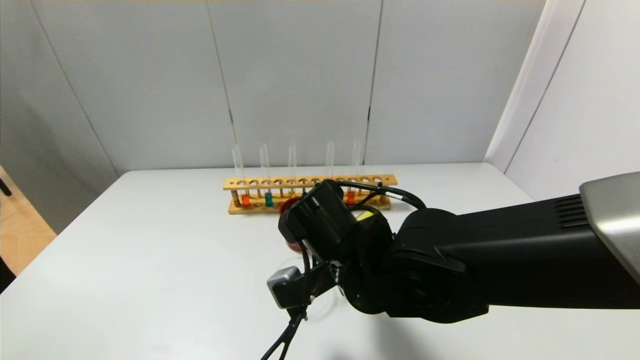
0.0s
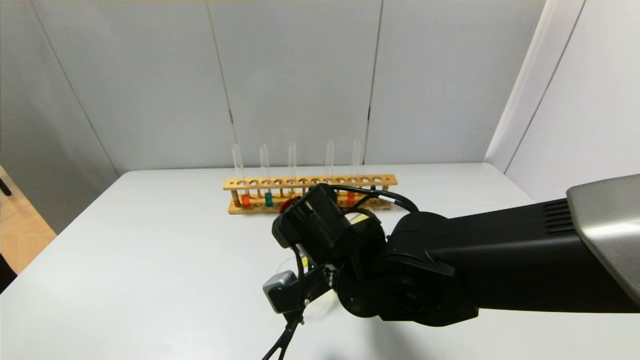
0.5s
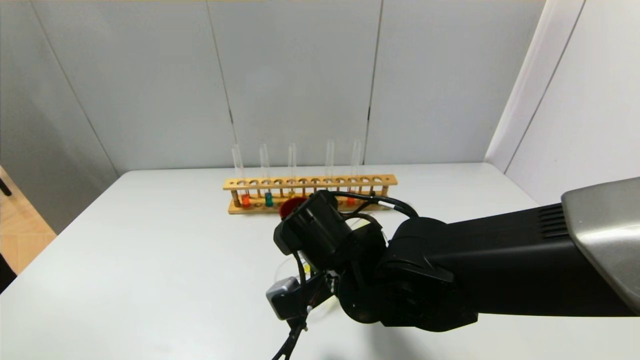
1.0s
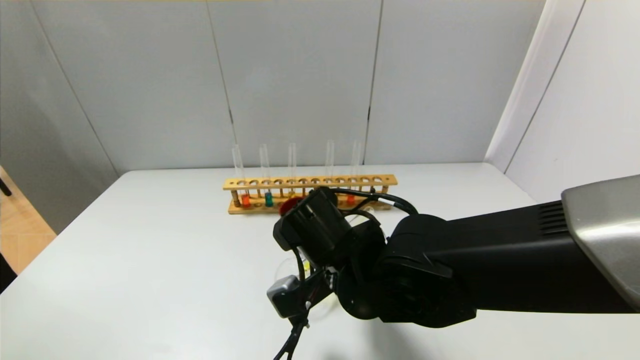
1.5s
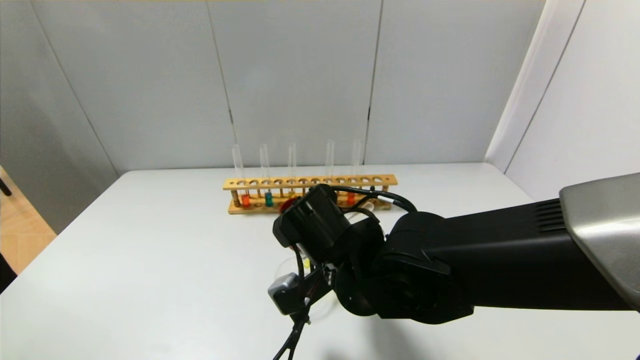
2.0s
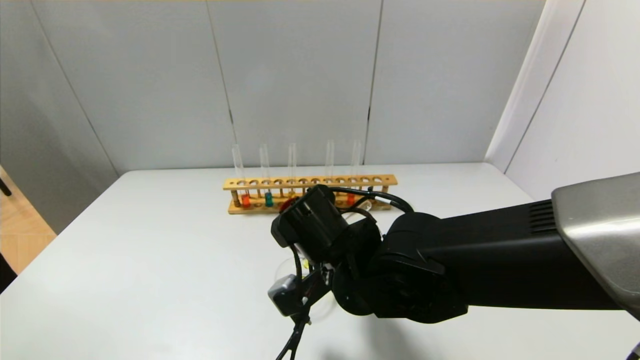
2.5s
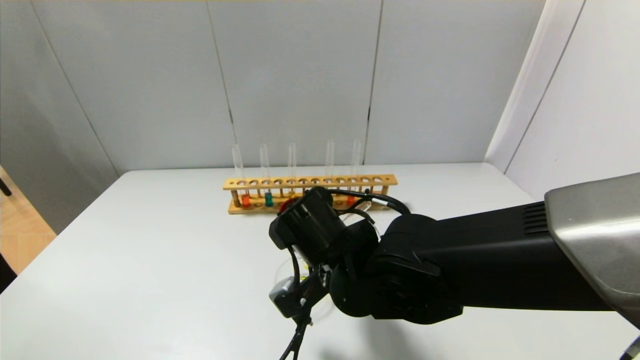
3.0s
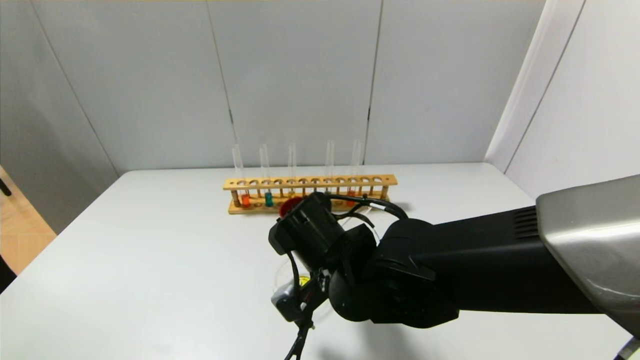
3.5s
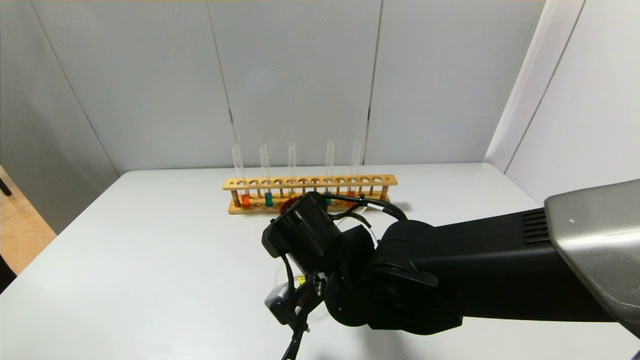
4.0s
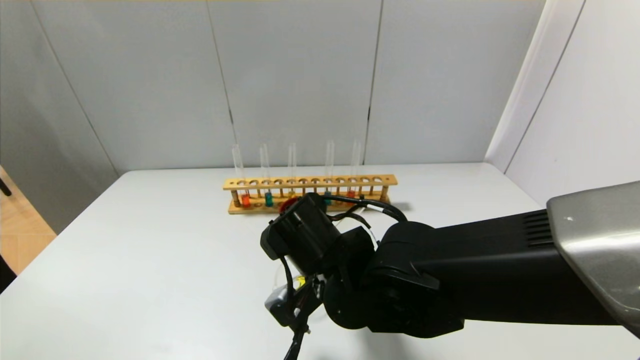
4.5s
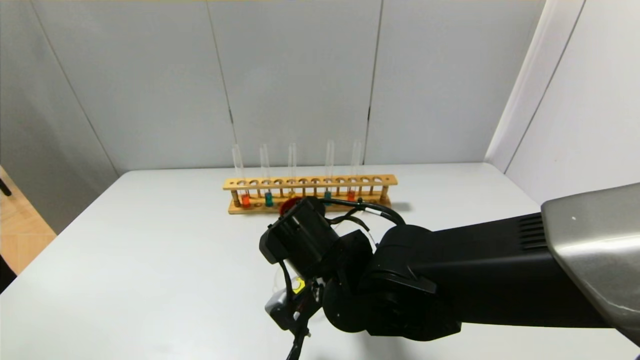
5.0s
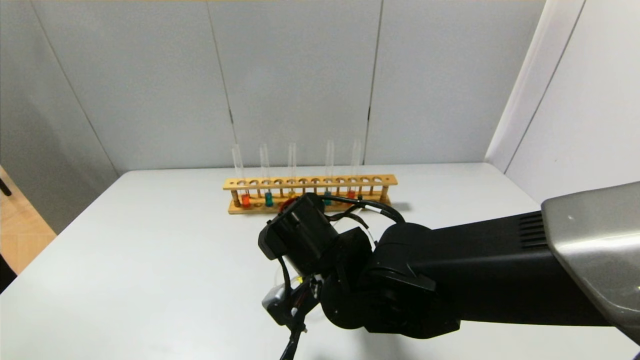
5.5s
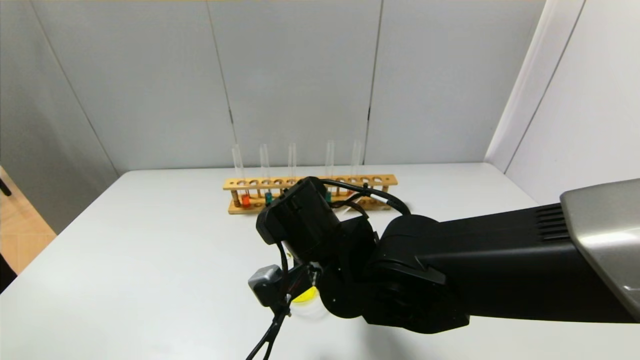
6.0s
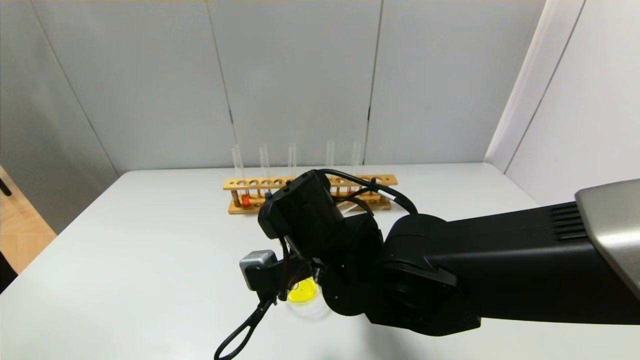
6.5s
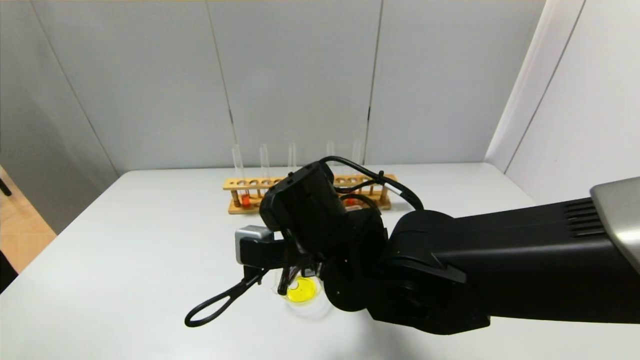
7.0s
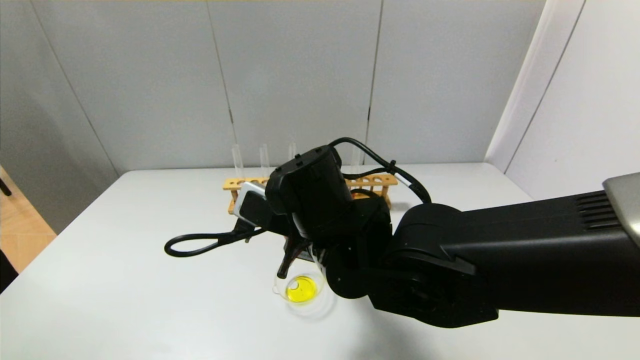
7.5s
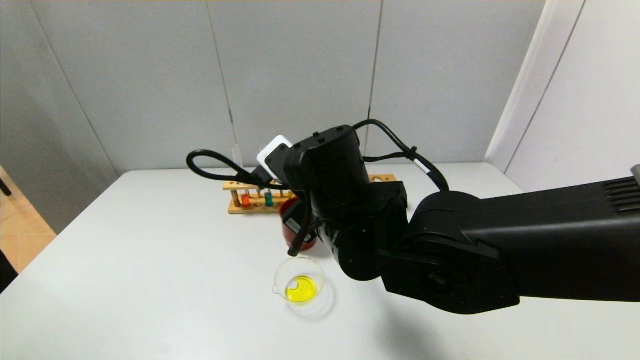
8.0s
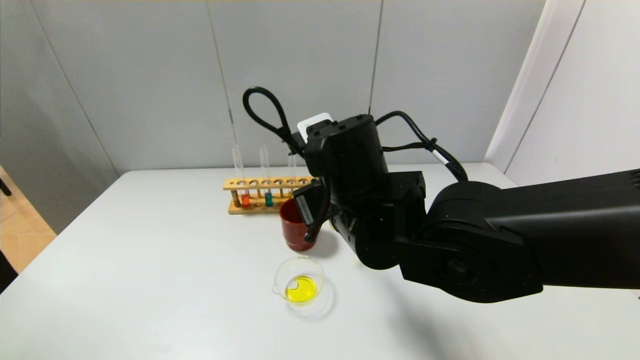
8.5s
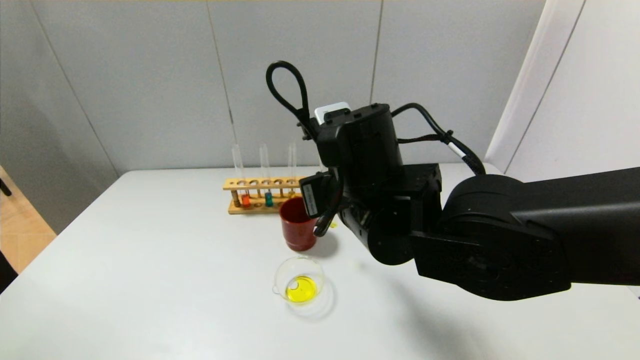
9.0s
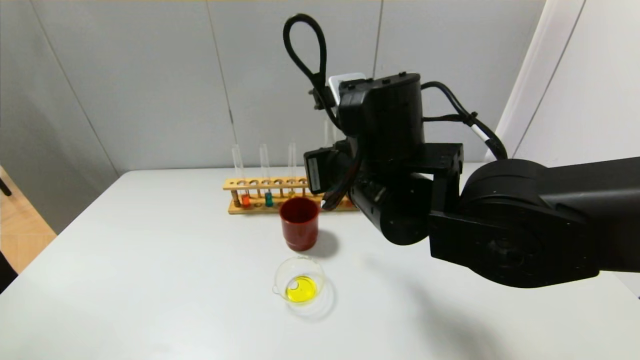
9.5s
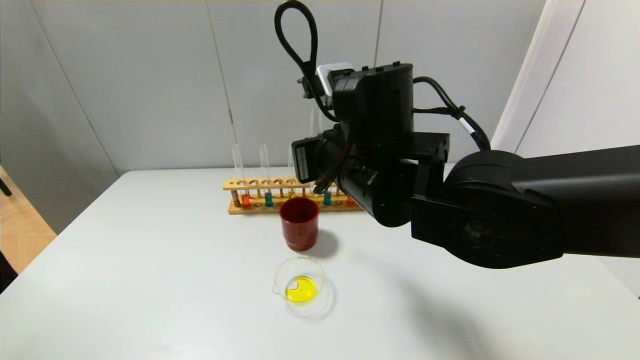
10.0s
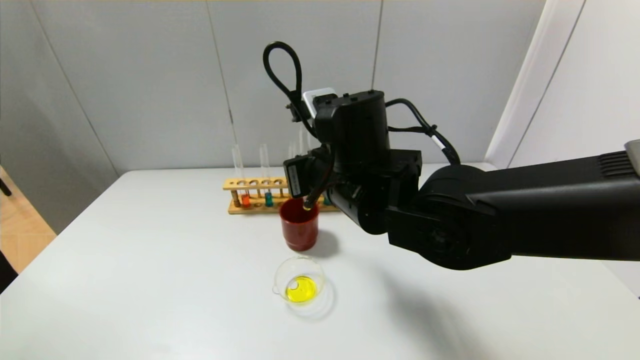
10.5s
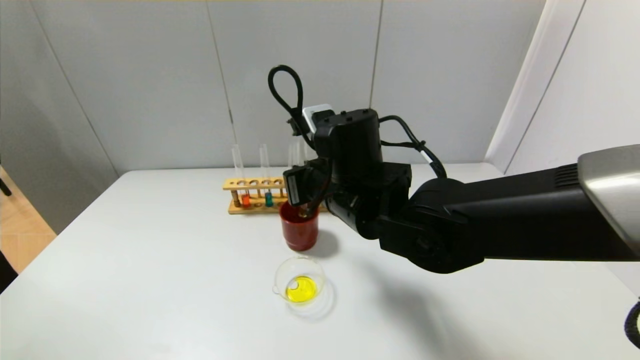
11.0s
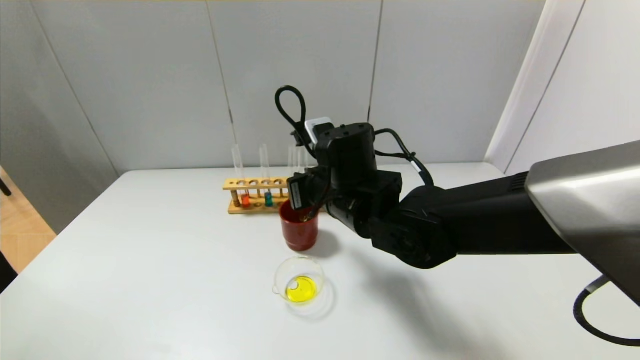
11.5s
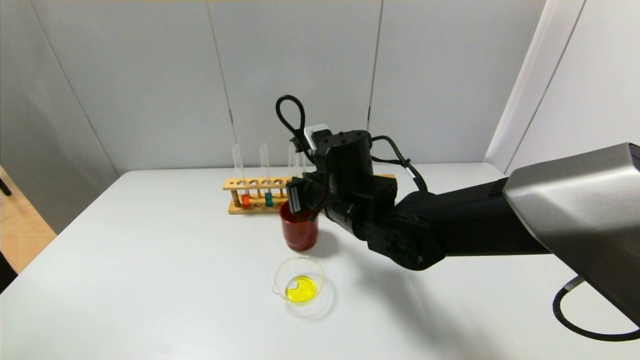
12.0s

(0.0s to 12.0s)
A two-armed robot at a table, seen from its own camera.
Step, 0.0s - 6.5s: Pour the yellow reagent into the graduated cylinder with the right gripper.
0.0s - 6.0s: The grippers move only a little.
6.0s - 8.0s: The right gripper moves approximately 5 cm.
8.0s - 10.0s: The right gripper changes place by about 5 cm.
10.0s - 12.0s: The right gripper moves downward and forward, roughly 10 cm.

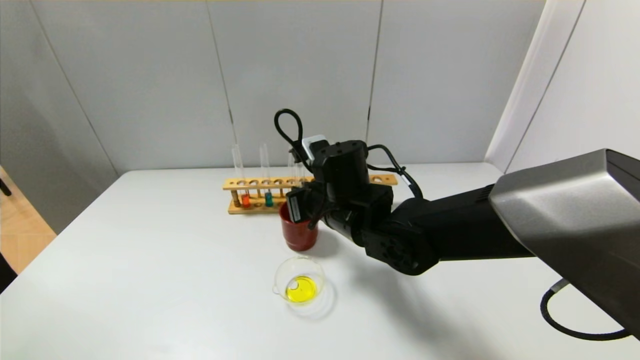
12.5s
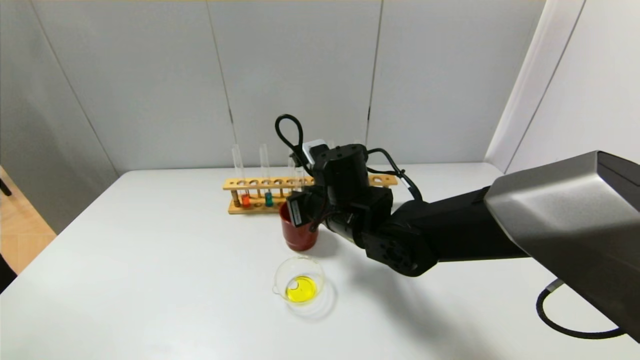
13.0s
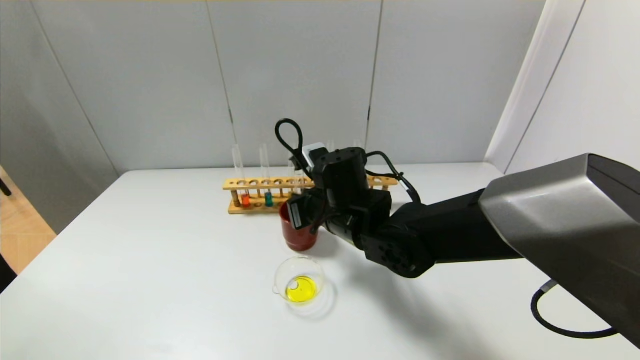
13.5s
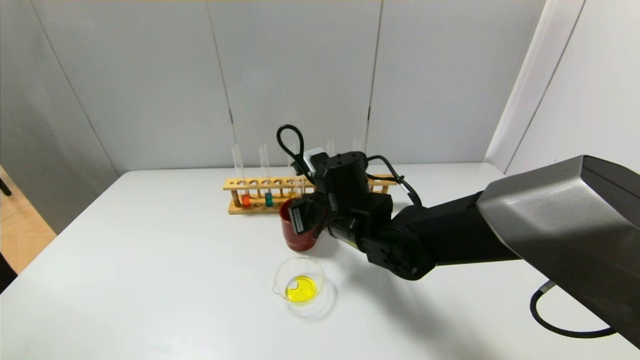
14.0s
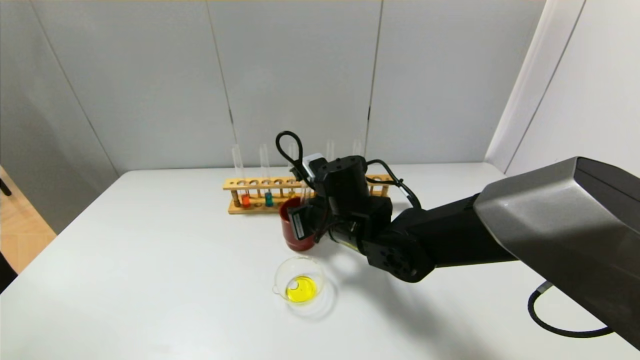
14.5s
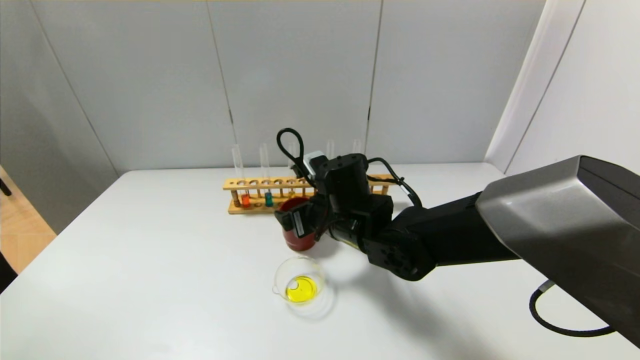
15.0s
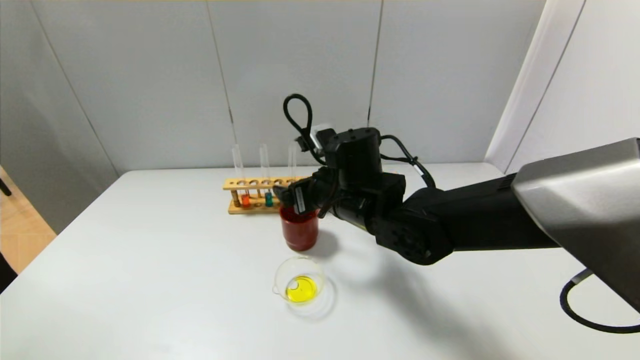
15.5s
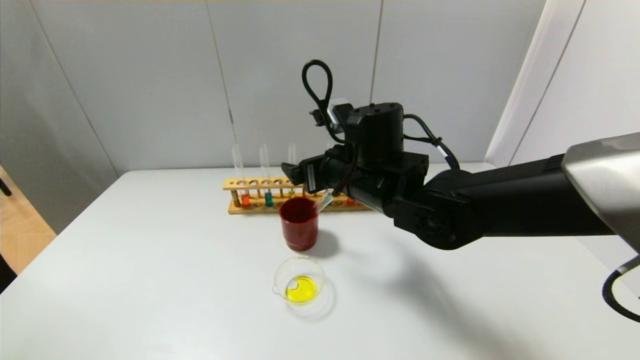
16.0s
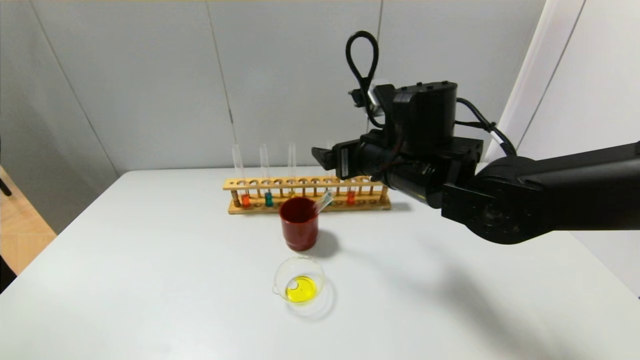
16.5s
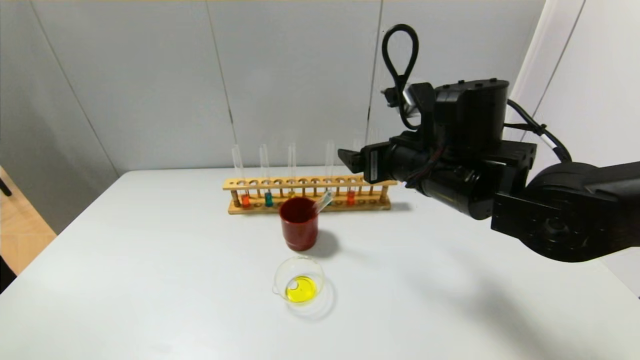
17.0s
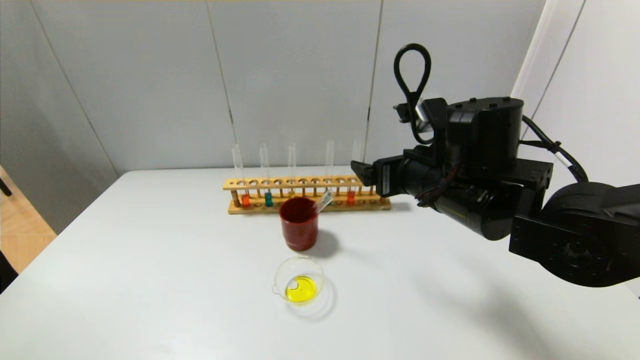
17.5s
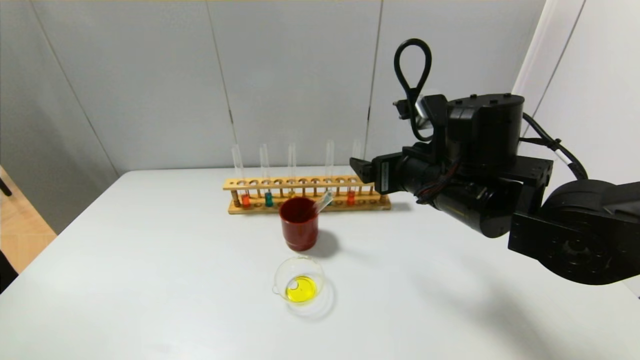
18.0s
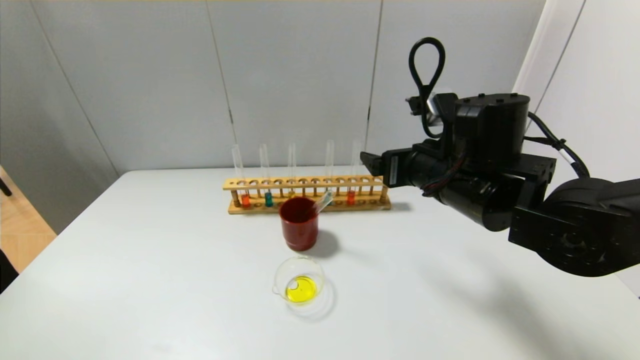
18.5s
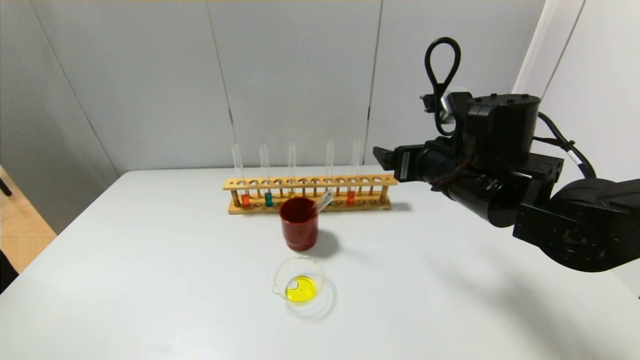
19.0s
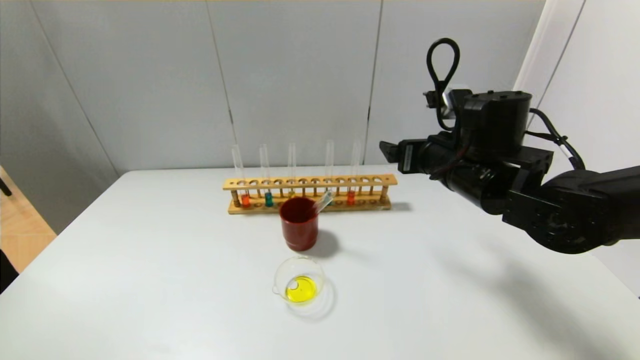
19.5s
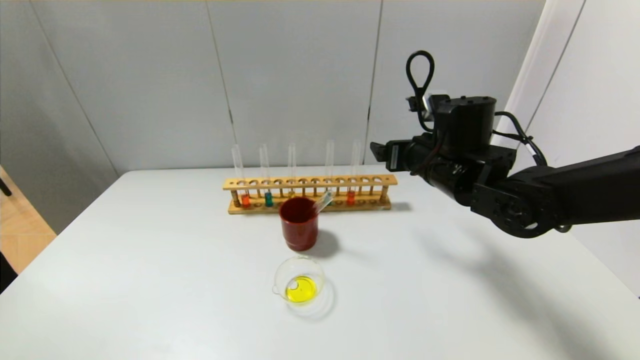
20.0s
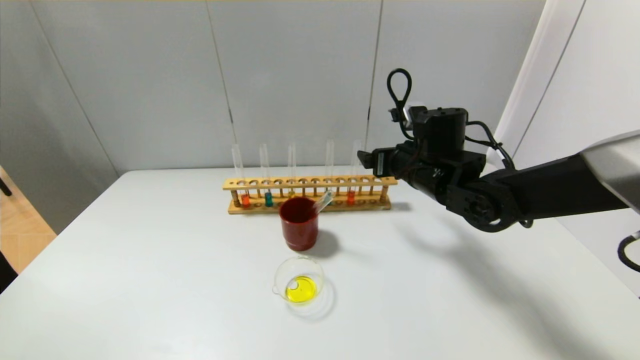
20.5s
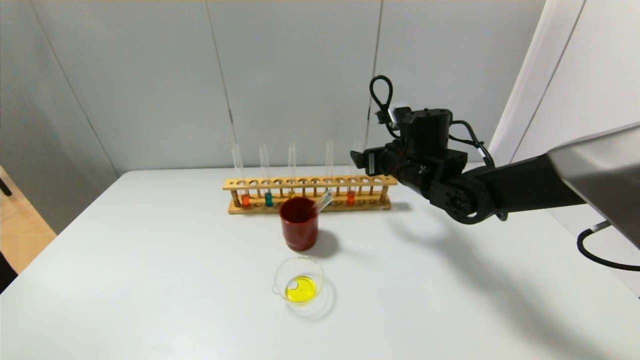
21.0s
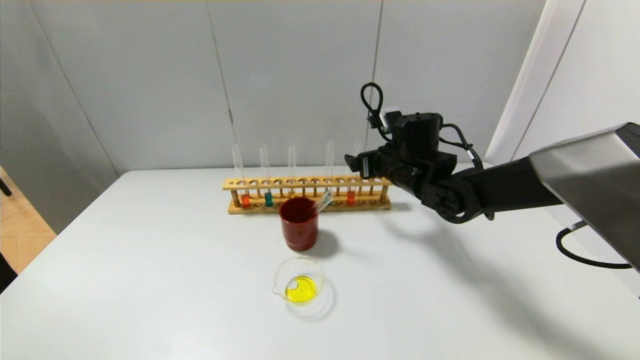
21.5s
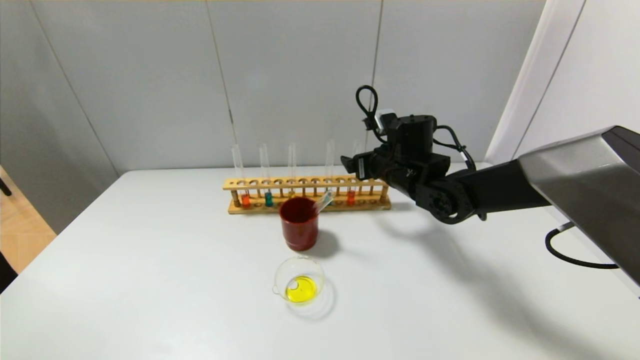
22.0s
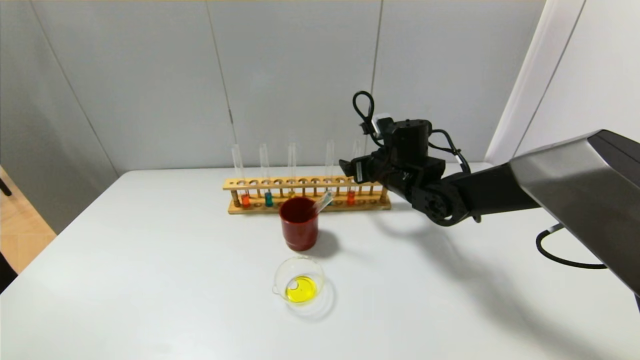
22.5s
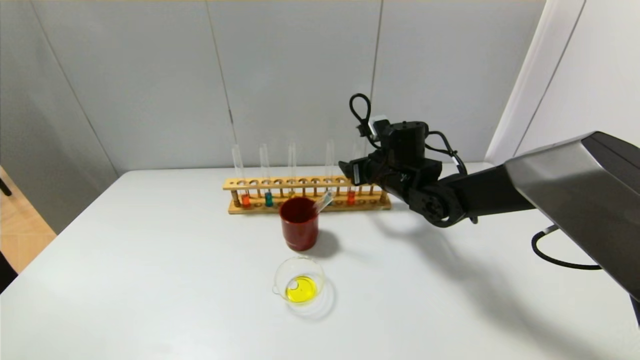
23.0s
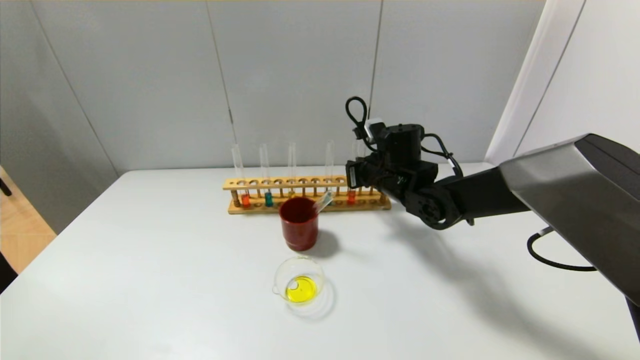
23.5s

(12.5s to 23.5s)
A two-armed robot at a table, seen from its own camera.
Step, 12.5s - 15.0s: Place the test tube into the brown cup with the right gripper.
12.5s - 14.5s: The right gripper opens.
14.5s - 16.0s: The right gripper heads upward, covering approximately 10 cm, and opens up.
16.0s - 18.0s: The right gripper goes approximately 10 cm to the right.
18.0s - 20.0s: The right gripper is displaced forward by approximately 5 cm.
20.0s - 21.5s: The right gripper heads forward, covering some 5 cm.
21.5s - 23.5s: The right gripper closes up.
